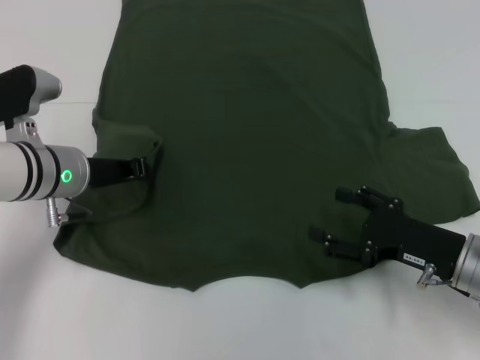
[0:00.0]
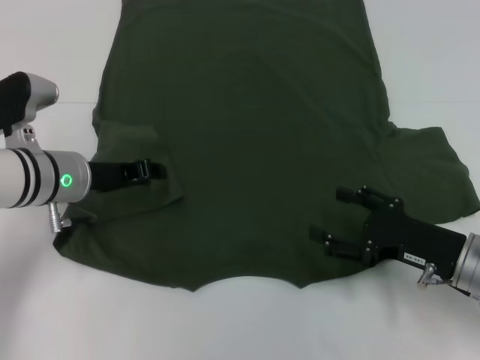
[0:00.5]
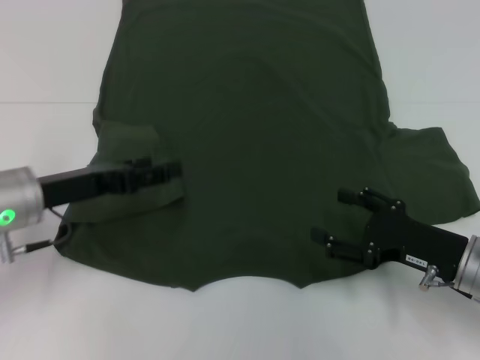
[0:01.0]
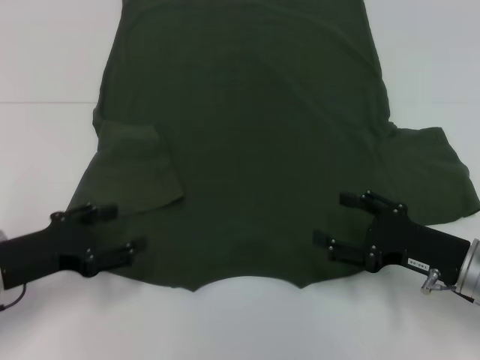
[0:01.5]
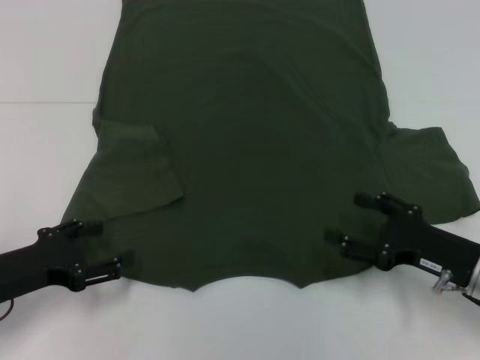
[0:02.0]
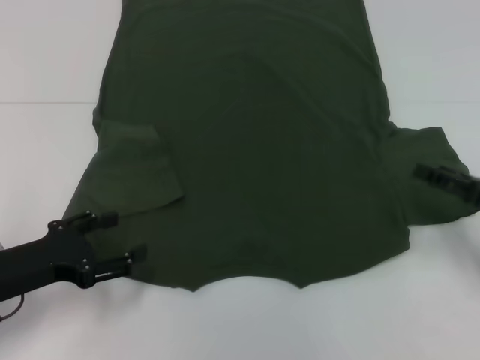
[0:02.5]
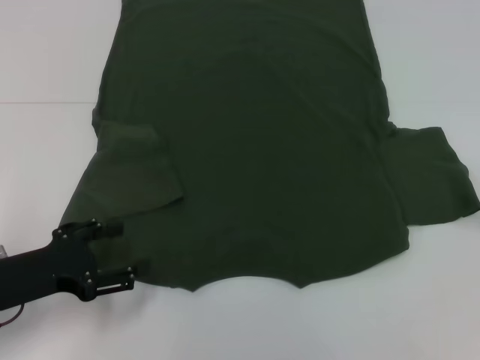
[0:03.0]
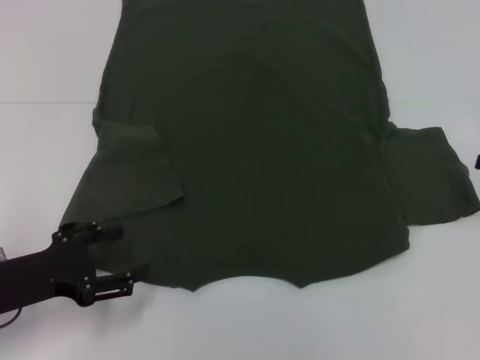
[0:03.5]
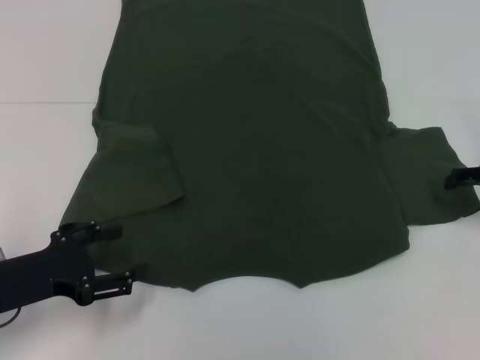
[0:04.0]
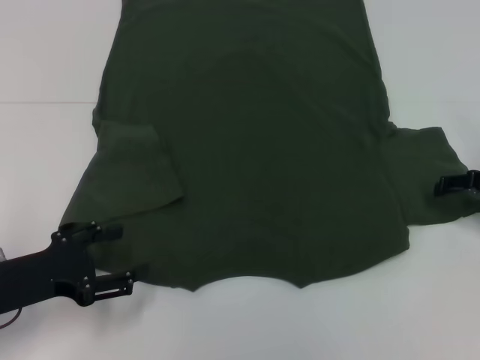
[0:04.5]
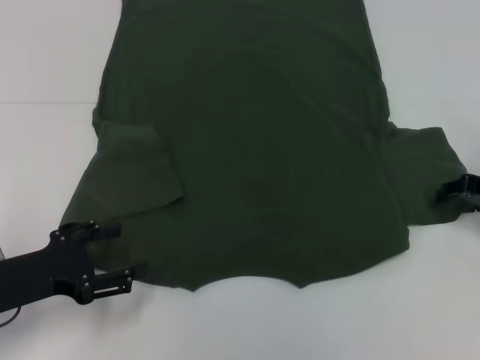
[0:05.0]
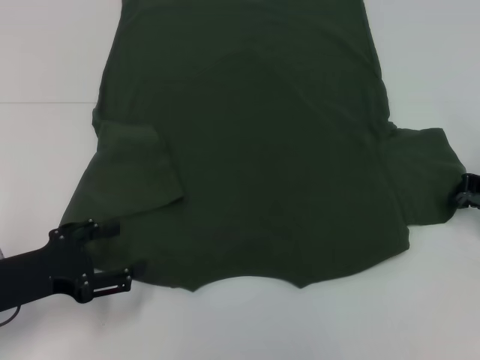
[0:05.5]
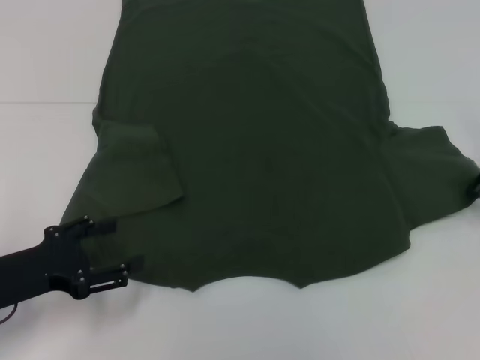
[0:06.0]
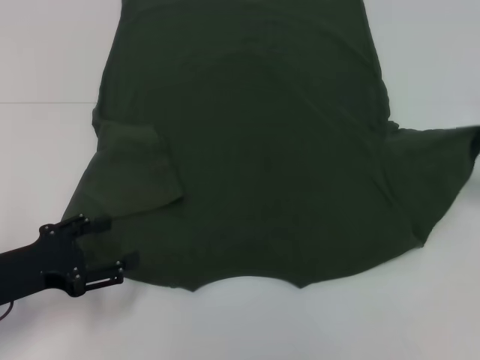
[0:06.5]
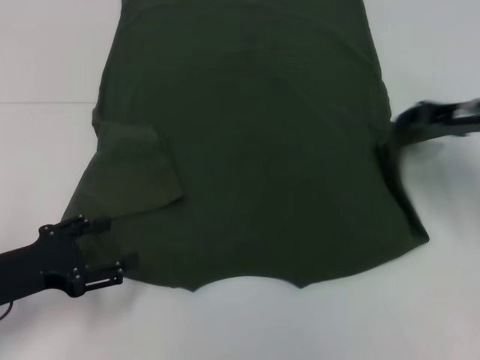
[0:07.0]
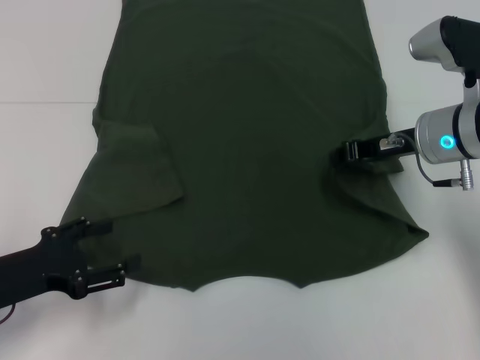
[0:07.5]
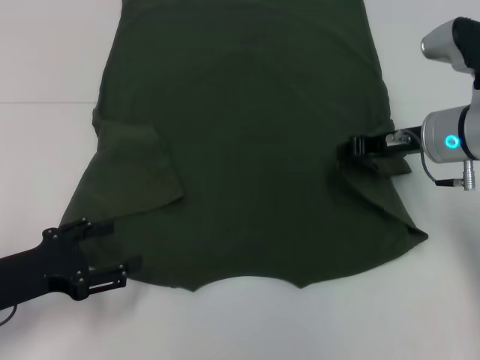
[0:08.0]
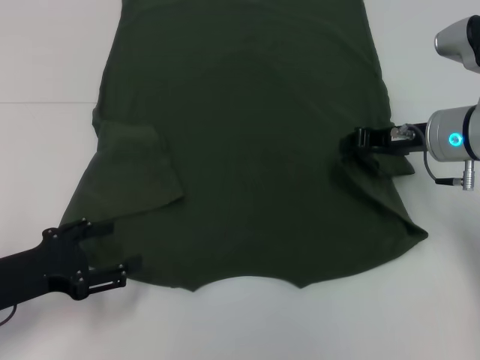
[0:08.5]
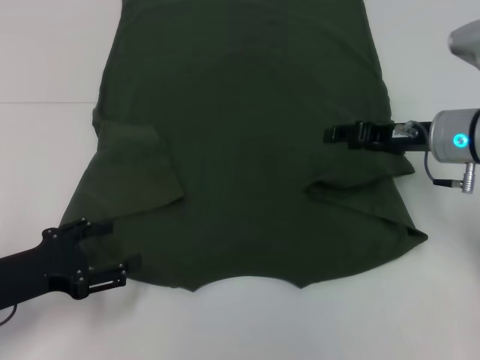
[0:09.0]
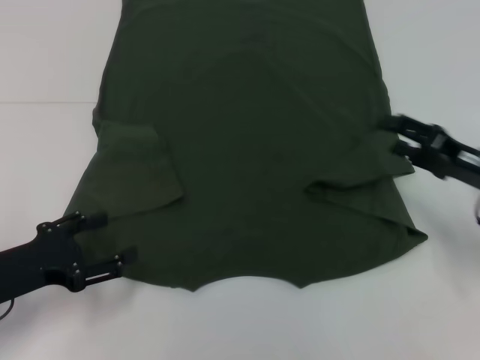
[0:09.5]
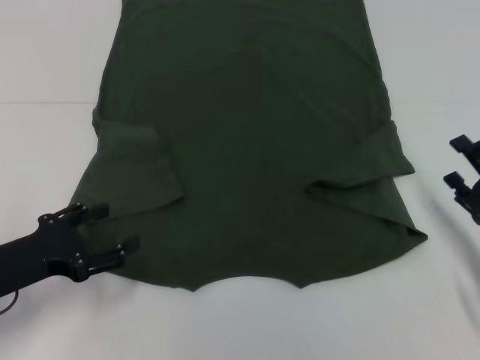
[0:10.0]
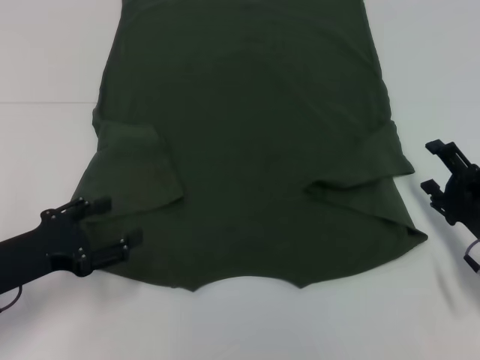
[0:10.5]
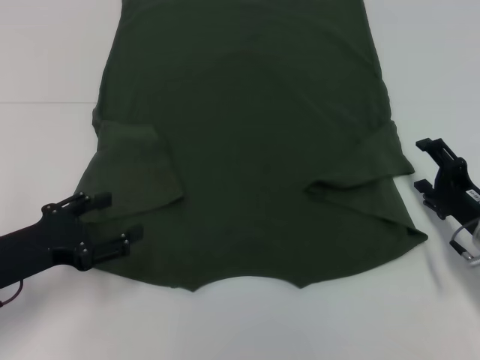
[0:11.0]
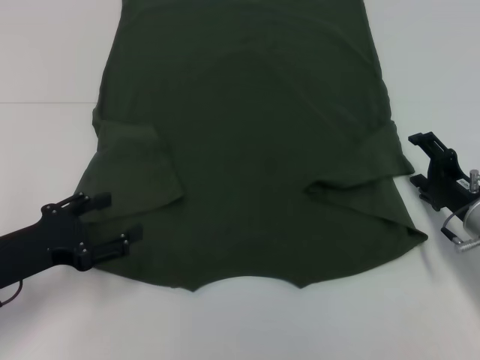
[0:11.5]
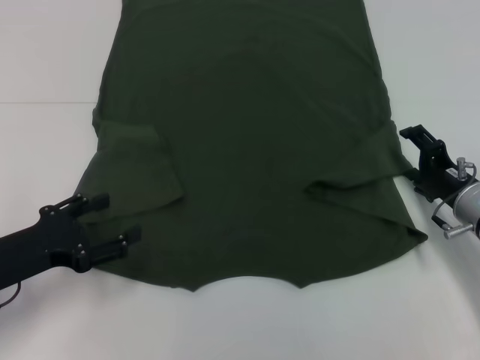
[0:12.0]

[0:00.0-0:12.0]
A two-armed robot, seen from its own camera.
Step, 0:02.0 to 0:09.5: Fold the bottom right sleeve with your right hand.
0:00.0 to 0:02.0: The left gripper heads backward and to the left, covering roughly 15 cm, and opens its fingers.
0:02.0 to 0:04.0: The right gripper heads forward, to the right and upward, covering about 15 cm.
0:04.0 to 0:06.0: The right gripper closes up.
0:06.0 to 0:08.0: The right gripper heads to the left, covering some 15 cm.
0:08.0 to 0:10.0: The right gripper shifts approximately 20 cm backward, downward and to the right, and opens up.
0:10.0 to 0:12.0: The right gripper goes some 10 cm forward.

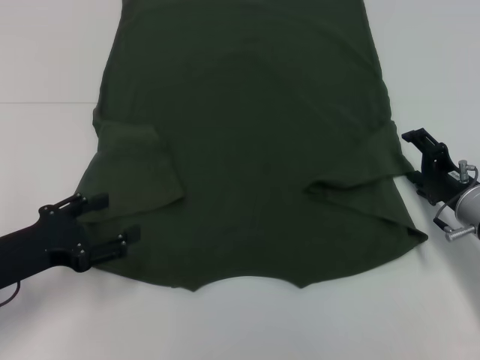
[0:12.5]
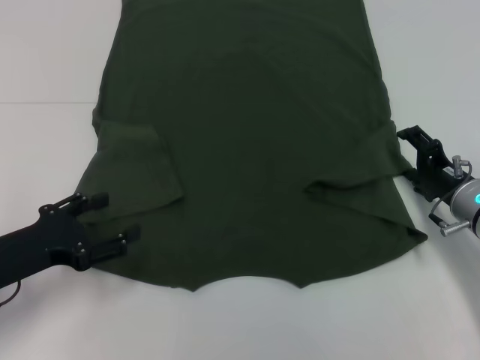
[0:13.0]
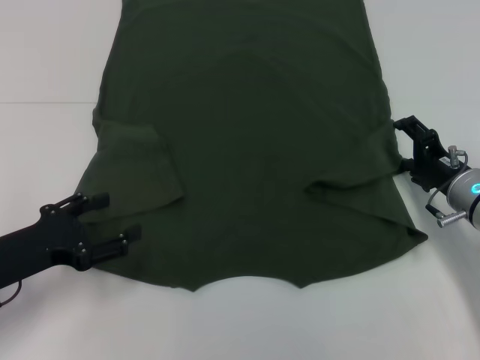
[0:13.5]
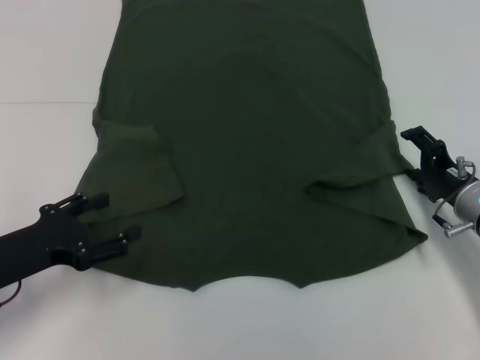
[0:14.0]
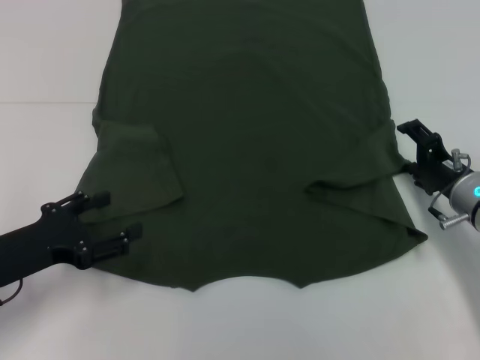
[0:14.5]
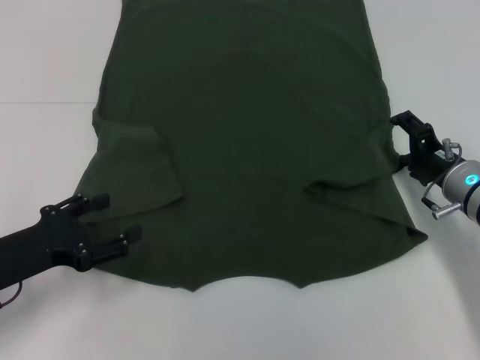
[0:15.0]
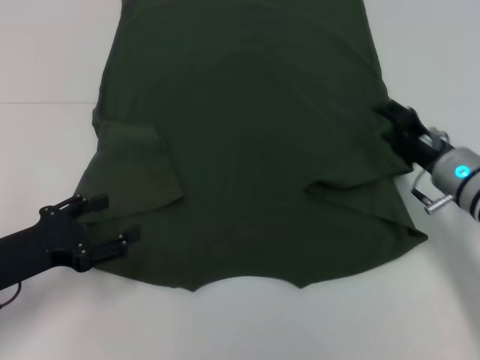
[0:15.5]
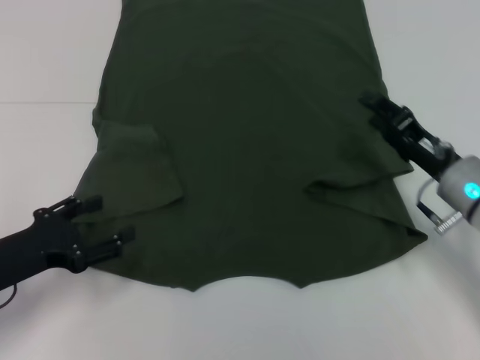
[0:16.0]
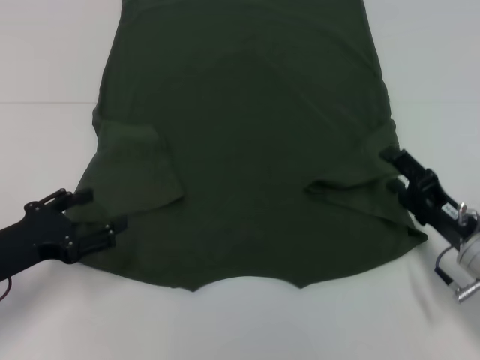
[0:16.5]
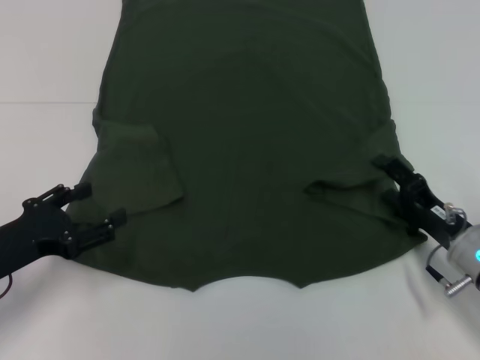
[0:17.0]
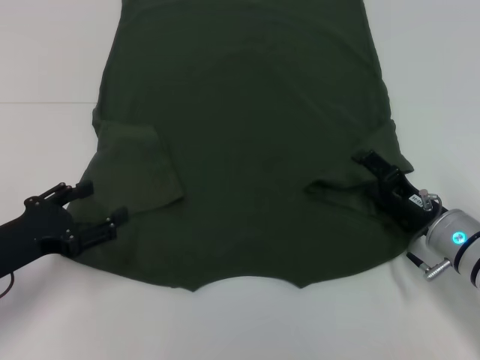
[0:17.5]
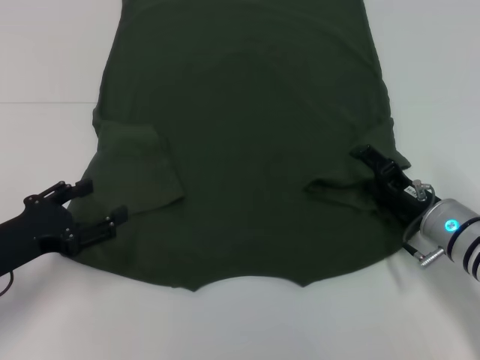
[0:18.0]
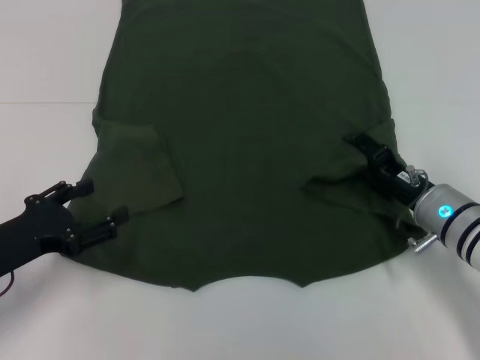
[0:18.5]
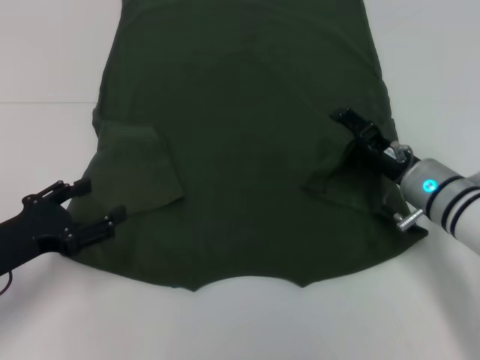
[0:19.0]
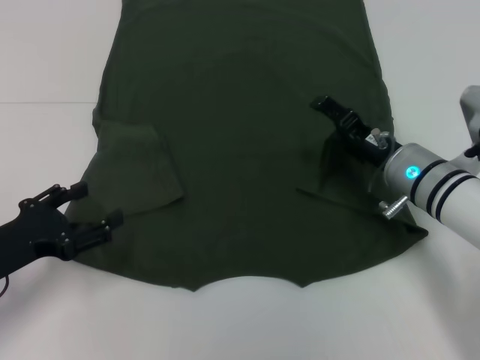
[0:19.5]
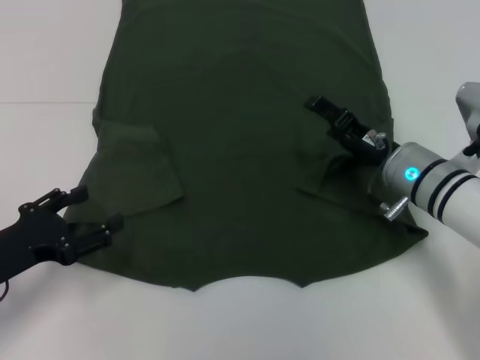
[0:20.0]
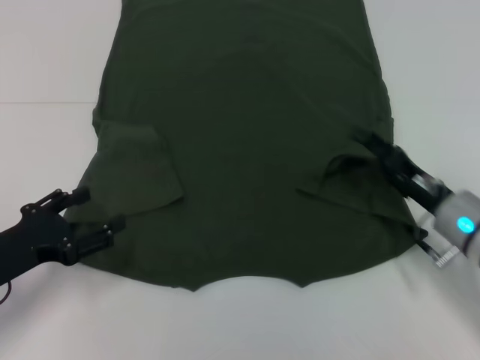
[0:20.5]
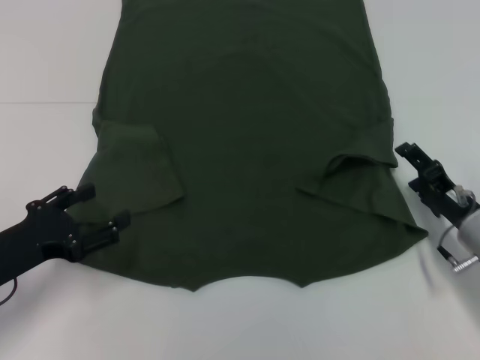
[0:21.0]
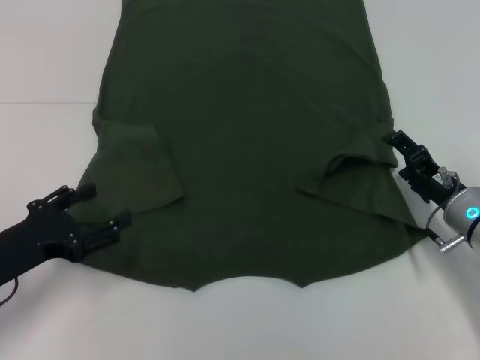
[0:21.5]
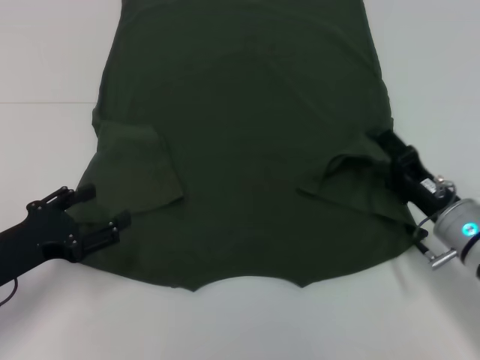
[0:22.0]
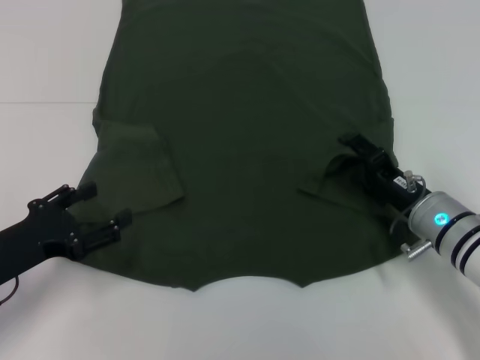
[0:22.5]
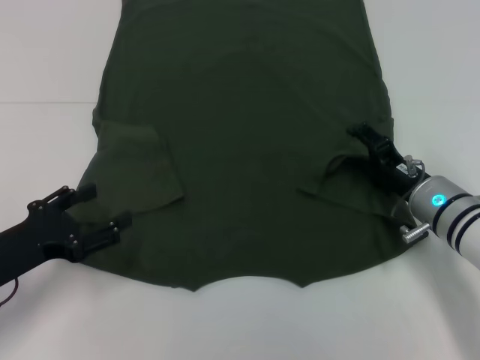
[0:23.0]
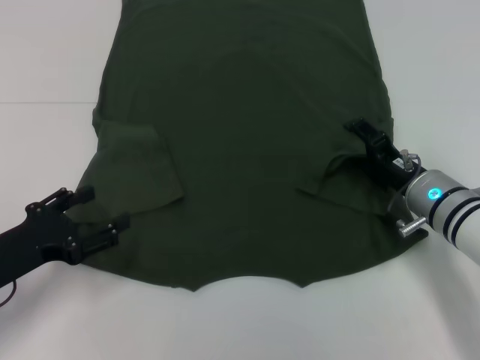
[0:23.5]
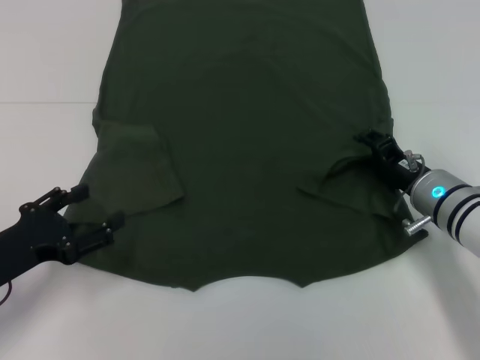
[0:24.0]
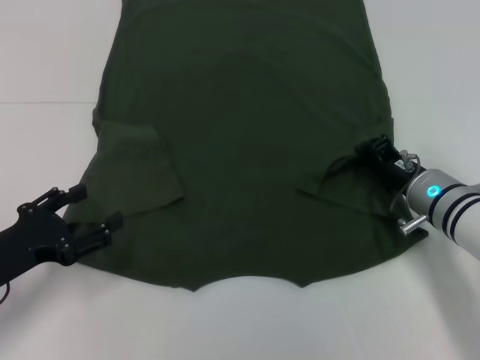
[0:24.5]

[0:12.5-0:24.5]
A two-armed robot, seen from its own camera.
0:12.5 to 0:14.5: The grippers make only small movements.
0:14.5 to 0:16.5: The right gripper is displaced backward by about 10 cm.
0:16.5 to 0:18.5: The right gripper heads forward, covering about 5 cm.
0:20.5 to 0:22.5: The grippers move only a little.
0:22.5 to 0:24.5: The right gripper closes its fingers.

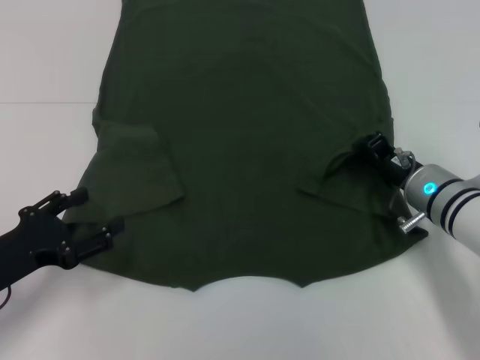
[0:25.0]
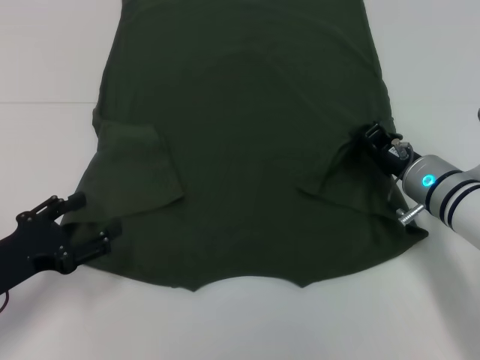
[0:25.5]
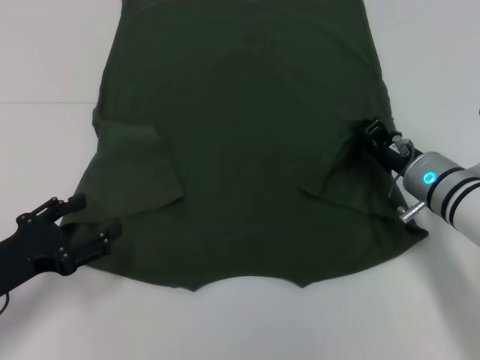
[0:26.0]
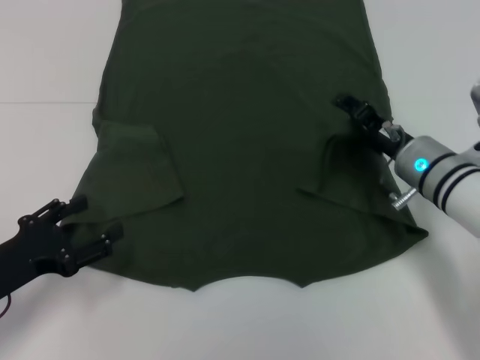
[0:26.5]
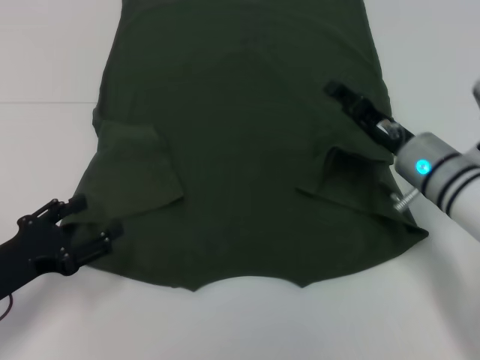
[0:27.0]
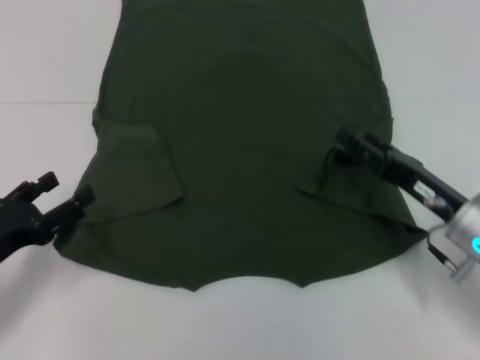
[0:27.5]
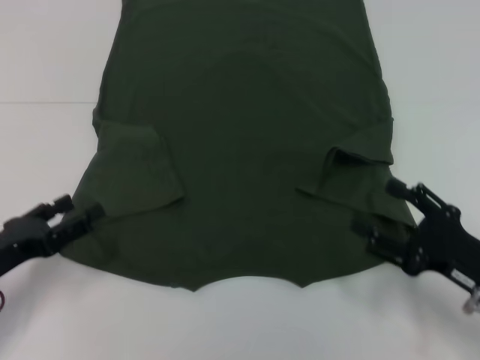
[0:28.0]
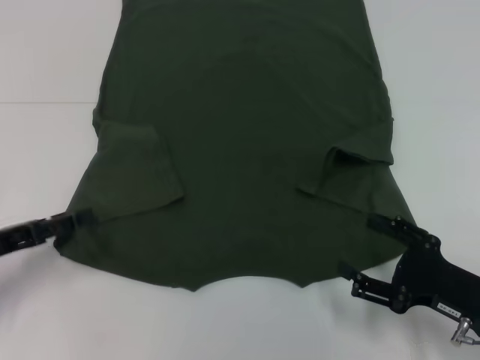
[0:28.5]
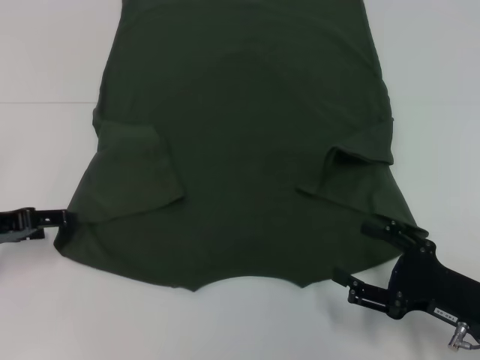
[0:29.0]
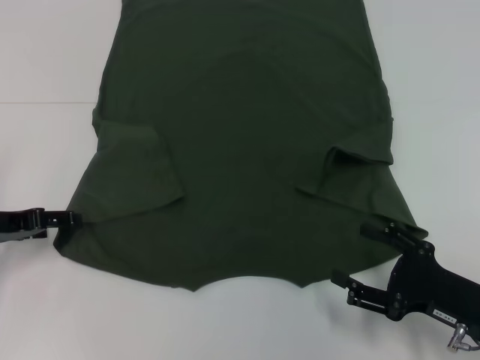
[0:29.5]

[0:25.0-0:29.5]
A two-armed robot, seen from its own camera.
0:25.0 to 0:27.0: The right gripper opens.
0:27.0 to 0:29.5: The right gripper moves backward and to the right, approximately 15 cm. The left gripper goes some 10 cm forward.
